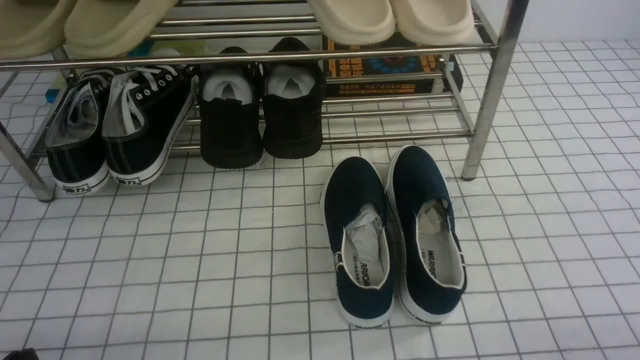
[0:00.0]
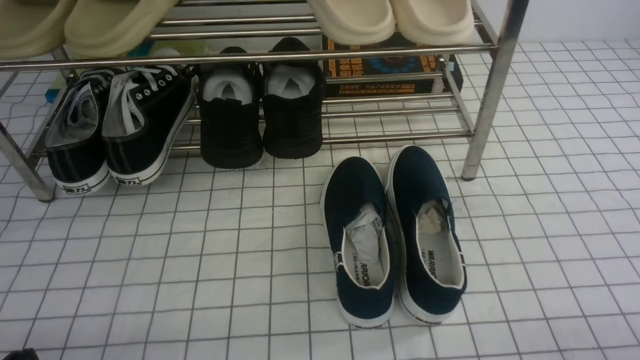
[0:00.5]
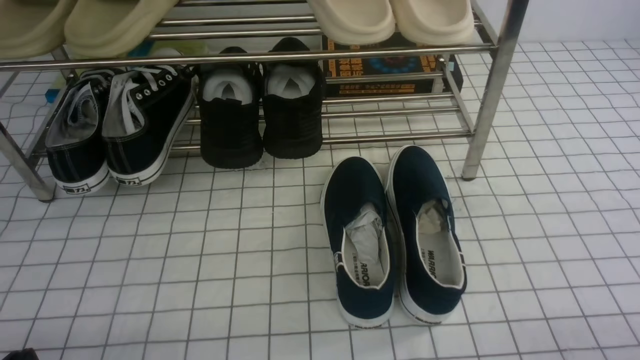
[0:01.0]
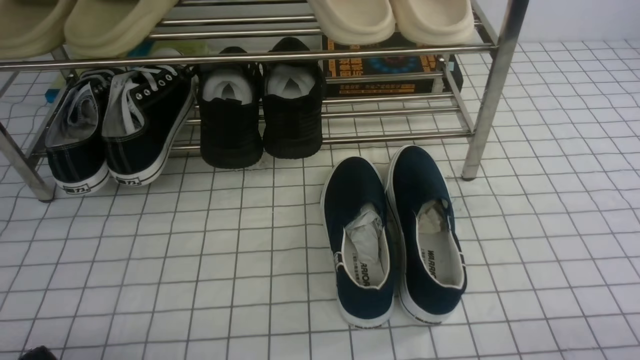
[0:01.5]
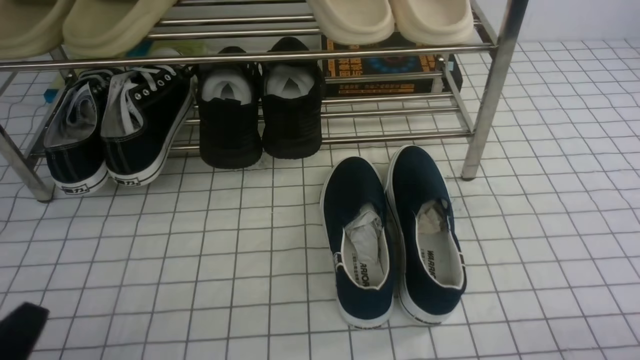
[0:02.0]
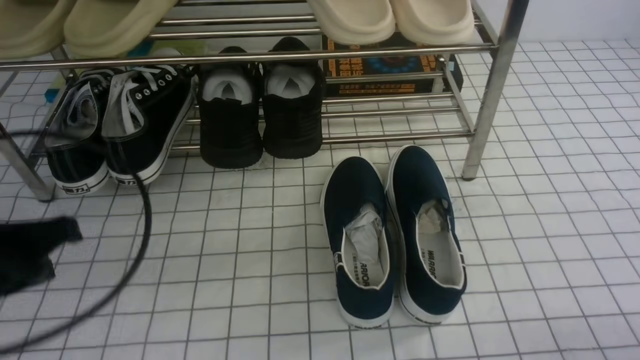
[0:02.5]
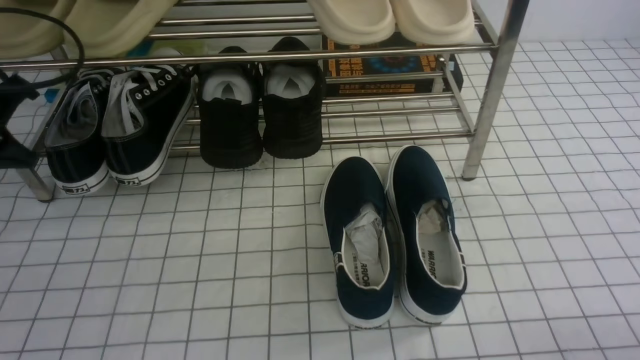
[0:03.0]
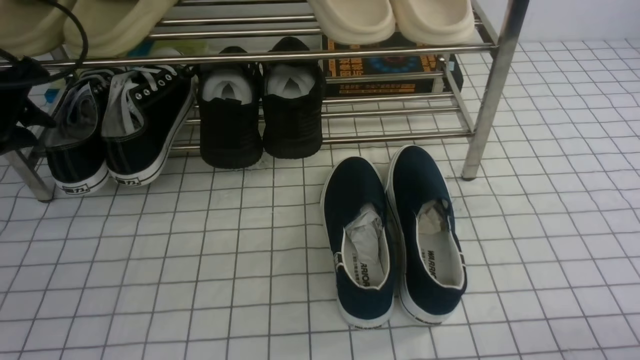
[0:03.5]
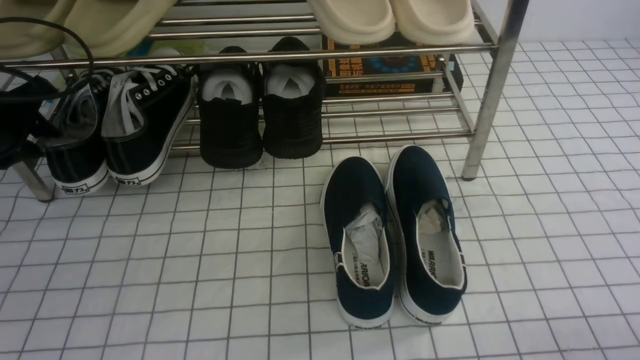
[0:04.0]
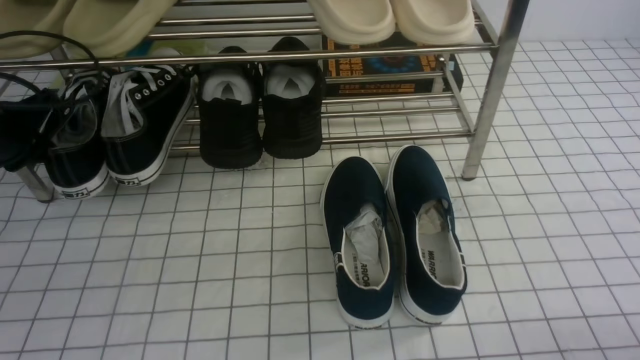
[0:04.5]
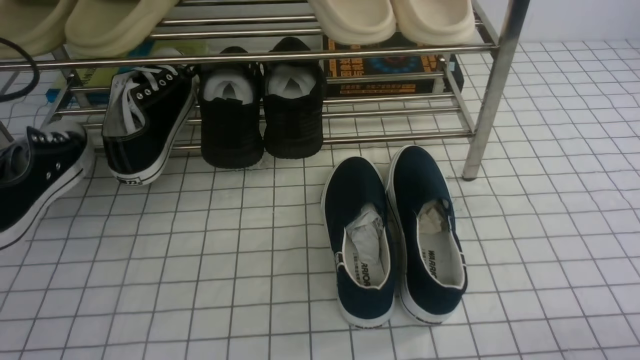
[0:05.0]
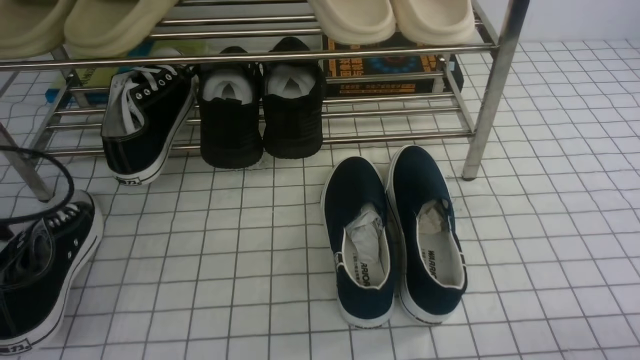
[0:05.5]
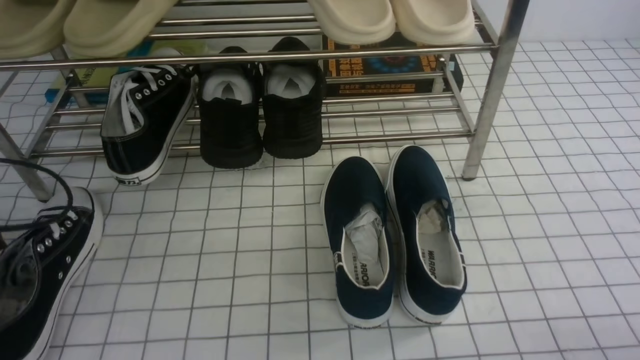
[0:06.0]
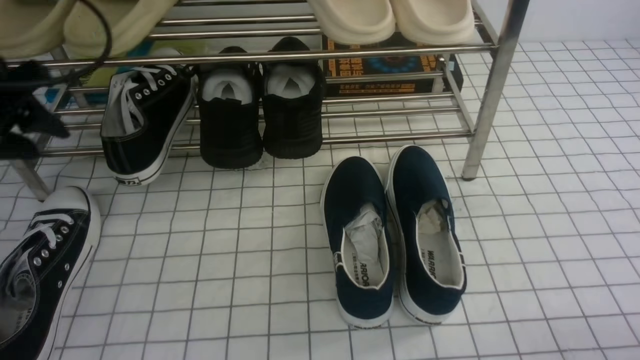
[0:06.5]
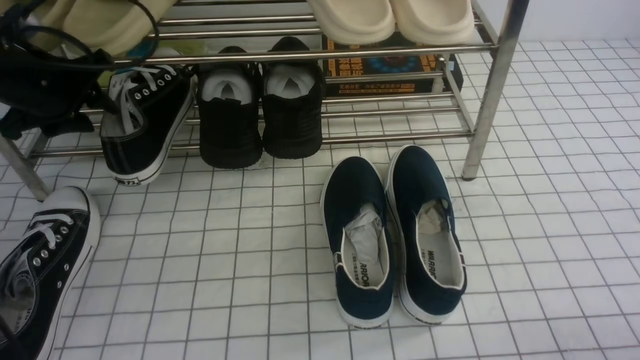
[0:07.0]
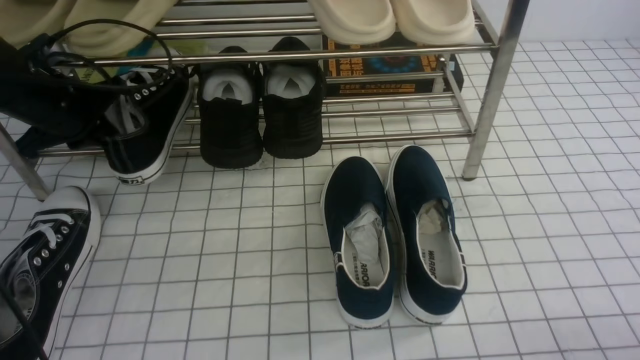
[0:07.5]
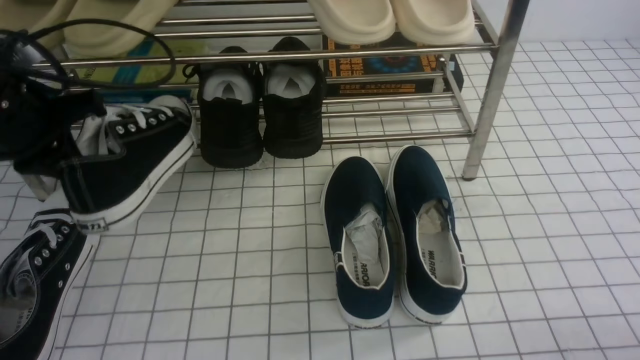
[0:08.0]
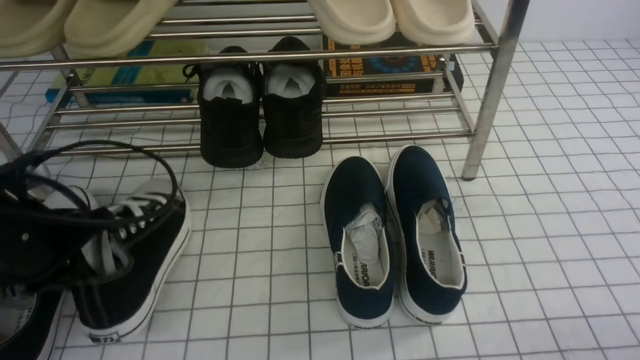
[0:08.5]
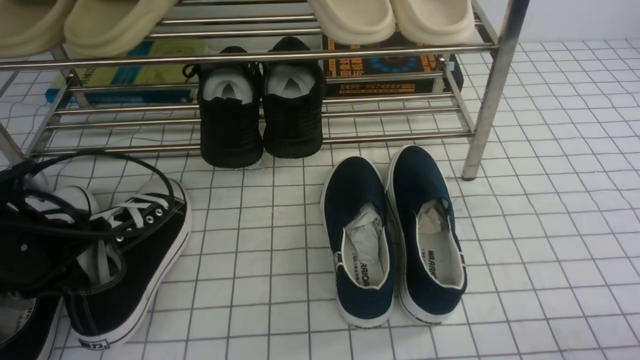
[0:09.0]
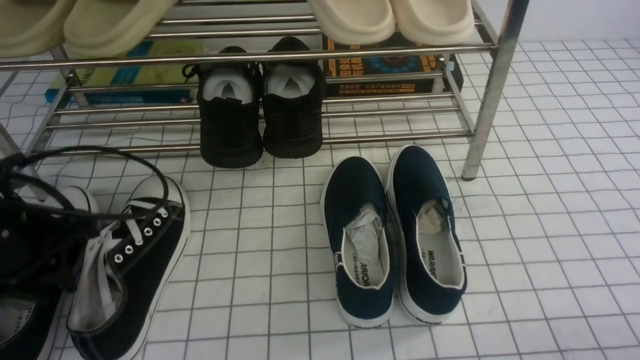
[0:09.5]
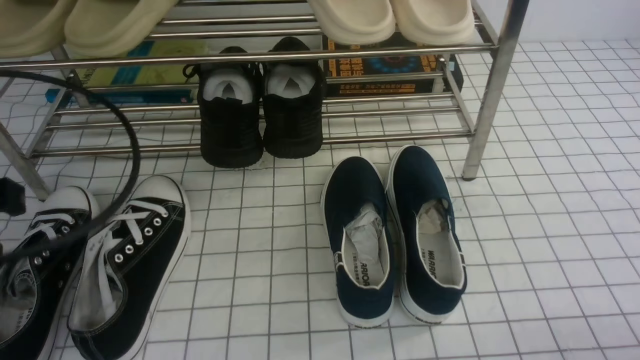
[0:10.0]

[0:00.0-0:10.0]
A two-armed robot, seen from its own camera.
Step, 0:00.0 to 0:04.0: use the left arm to clamp a shoe on the left side of the shoe rack.
Step, 0:04.5 to 0:06.0: Use your left arm to remove the clamped shoe from the shoe rack and put it down.
Step, 0:06.5 to 0:07.5: use the left arm to clamp a shoe on the left side of the shoe rack.
Step, 0:08.0 to 0:09.5: Use your left arm to remove the clamped shoe from the shoe rack and put it down.
0:00.0 to 0:02.0: The left gripper travels upward by roughly 5 cm.
0:02.0 to 0:04.0: The left gripper goes some 30 cm forward, and opens.
0:04.0 to 0:06.0: The left gripper shifts about 15 cm backward, and closes and opens again.
0:06.0 to 0:08.0: The left gripper is displaced forward, to the right and upward by about 15 cm, and closes.
0:08.0 to 0:10.0: The left gripper is displaced backward by about 15 cm, and opens, then closes once more.

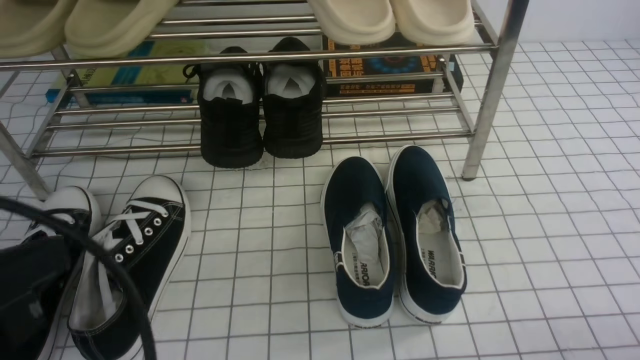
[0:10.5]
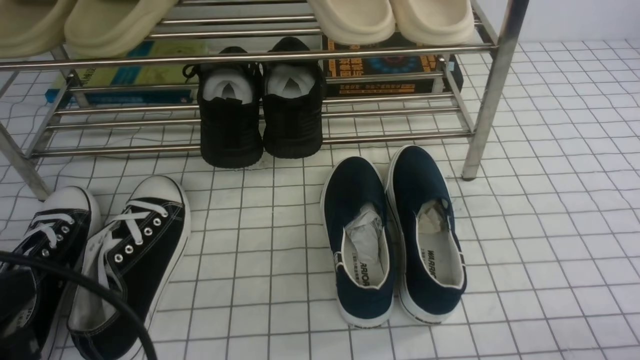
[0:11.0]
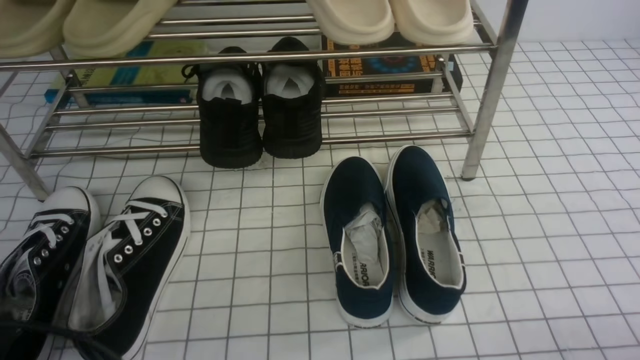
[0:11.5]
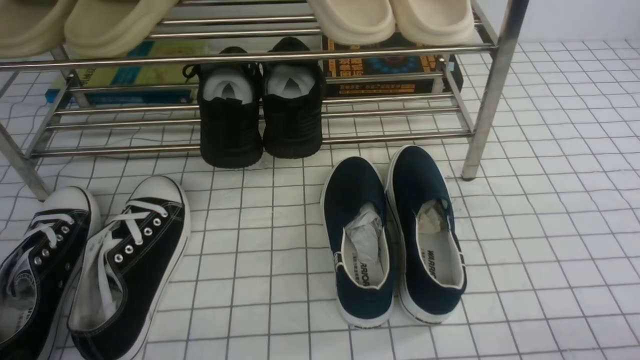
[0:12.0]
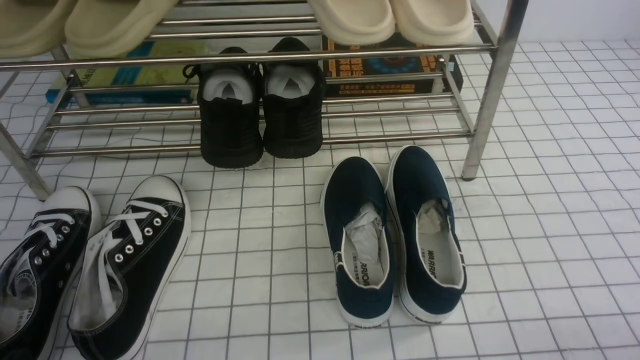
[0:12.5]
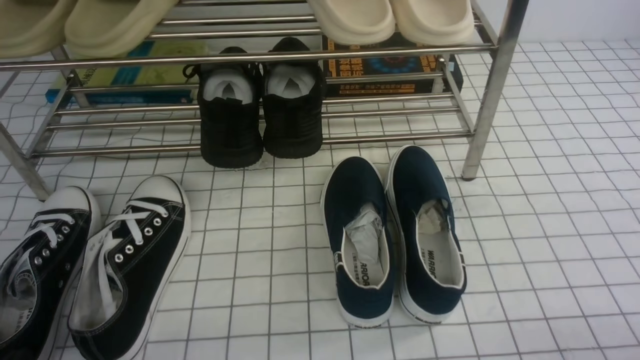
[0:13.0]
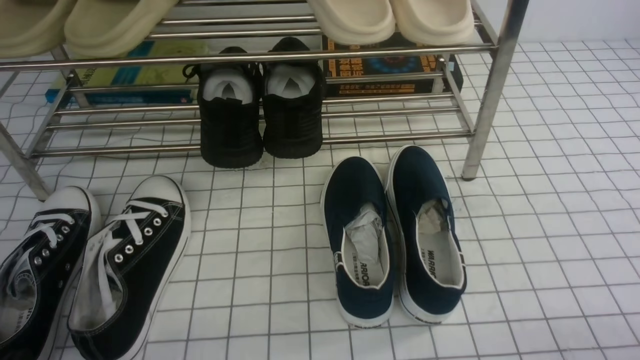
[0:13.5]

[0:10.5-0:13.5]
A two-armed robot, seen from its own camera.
0:10.5 to 0:12.0: The left gripper is displaced downward by approximately 15 cm.
0:12.0 to 0:13.5: Neither gripper changes place.

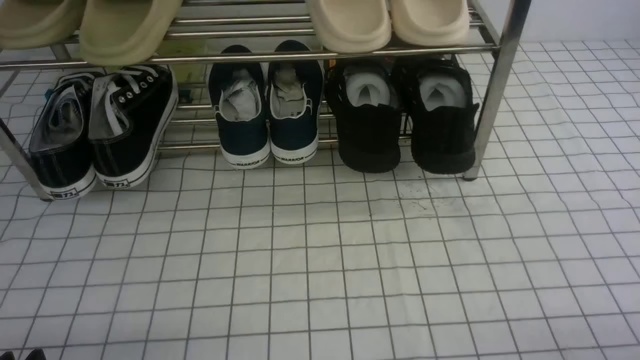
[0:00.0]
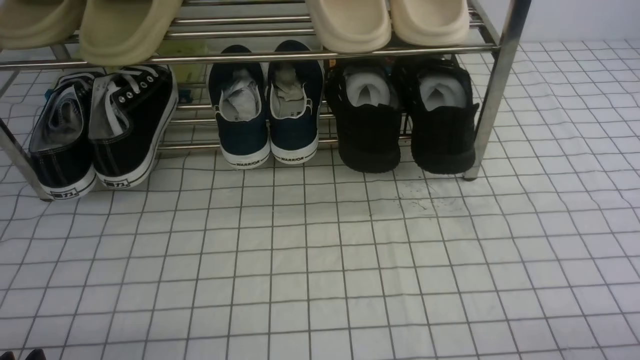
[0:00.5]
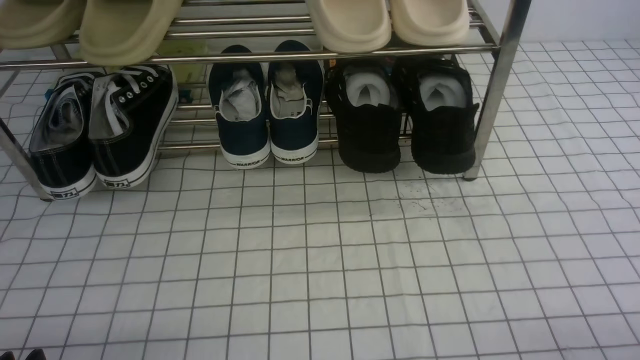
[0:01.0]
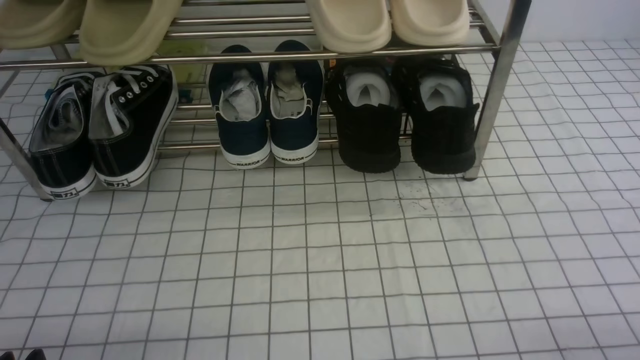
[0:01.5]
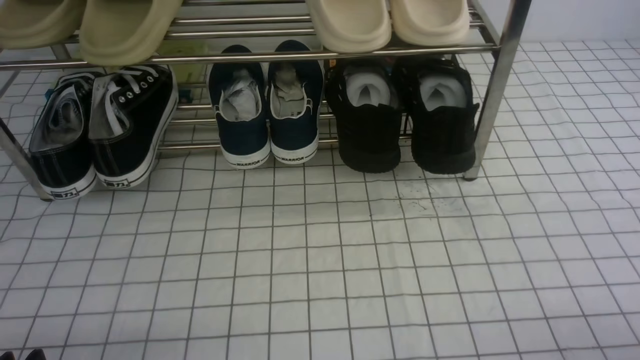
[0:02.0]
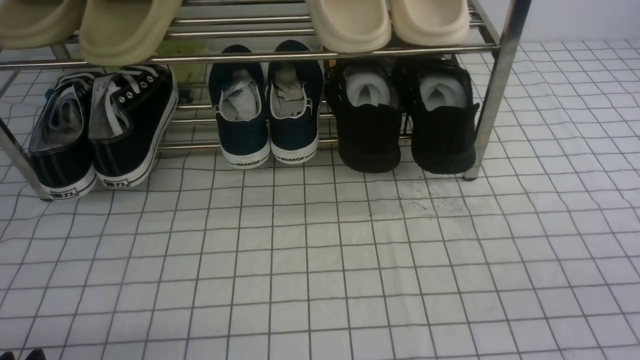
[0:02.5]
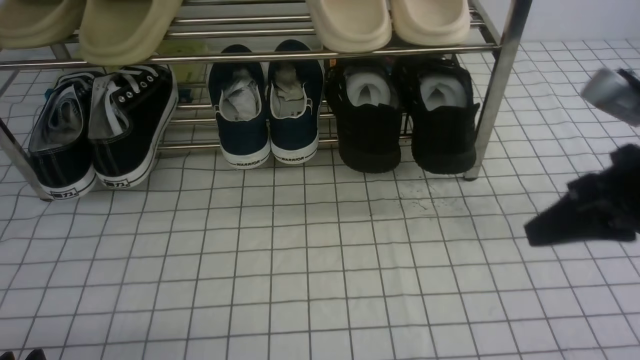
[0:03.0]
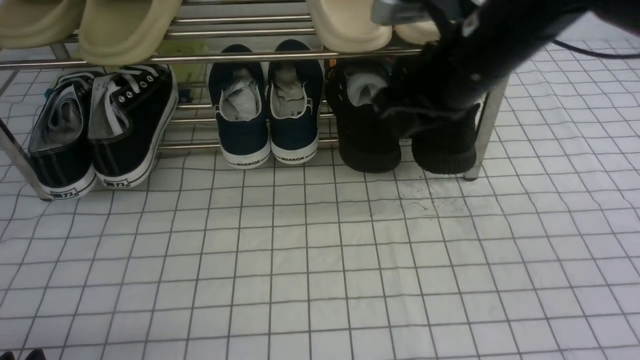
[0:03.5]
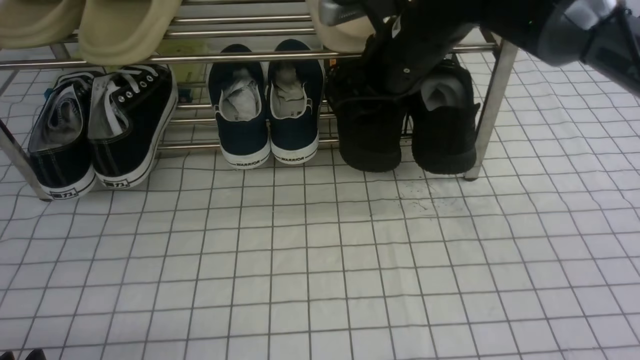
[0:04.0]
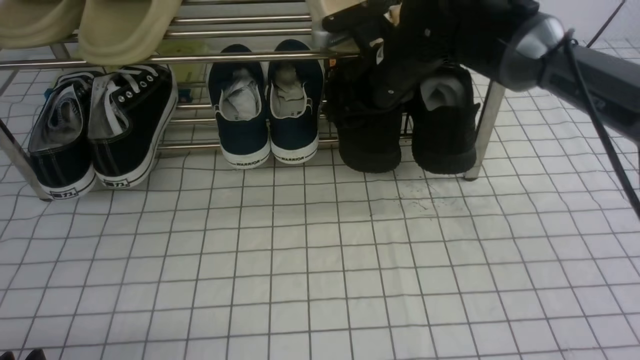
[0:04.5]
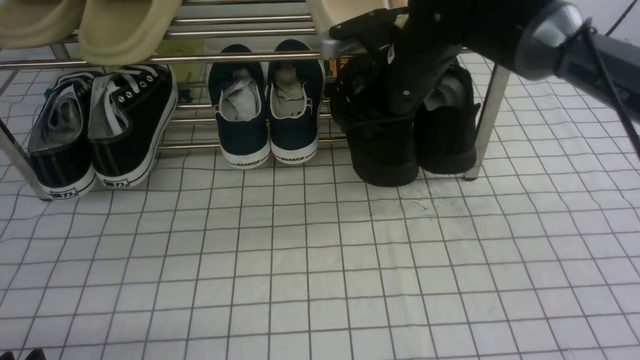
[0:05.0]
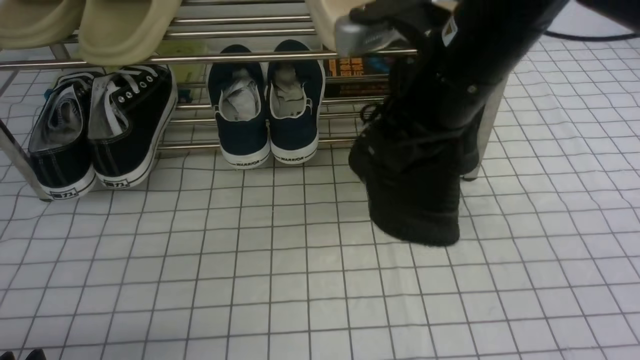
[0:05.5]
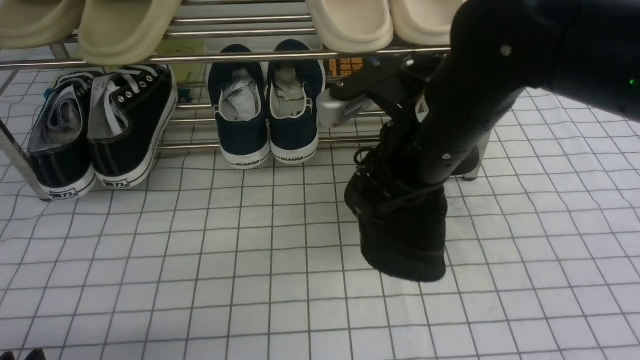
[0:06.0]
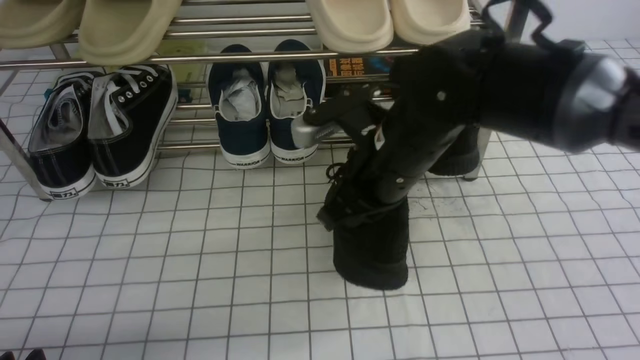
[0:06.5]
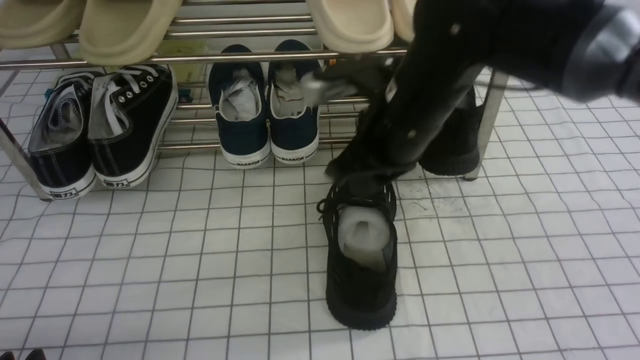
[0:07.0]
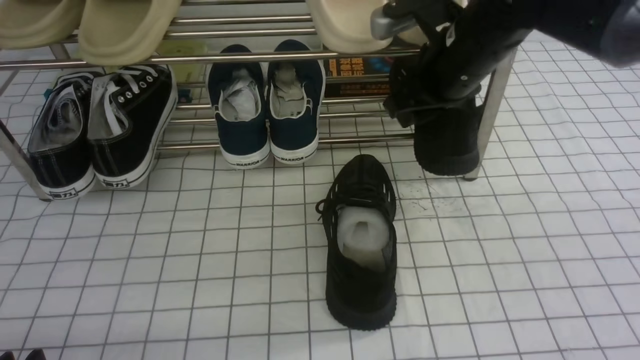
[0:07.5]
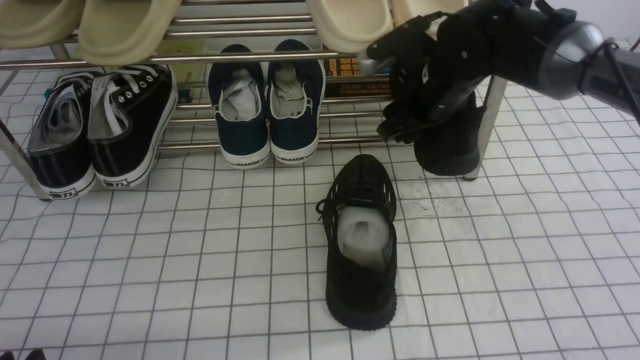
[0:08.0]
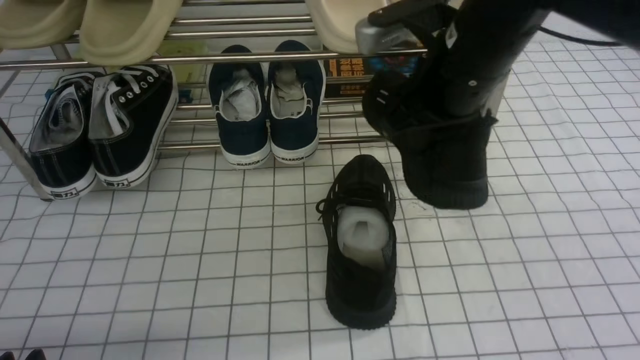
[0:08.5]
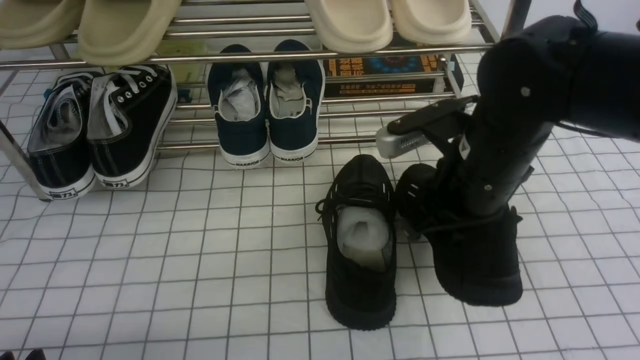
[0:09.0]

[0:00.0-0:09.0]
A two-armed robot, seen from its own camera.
Step, 0:00.0 to 0:04.5: use the right arm to clamp a shoe on the right side of the shoe rack.
Step, 0:05.0 to 0:07.0: use the right arm to take out the clamped shoe from the shoe rack and put it down.
Step, 0:07.5 to 0:08.0: use the right arm to clamp a shoe on the right side of the shoe rack.
0:02.0 to 0:04.5: The right gripper goes approximately 40 cm forward and to the left, and opens.
0:04.5 to 0:07.0: The right gripper heads backward, covering about 10 cm, and closes.
0:07.0 to 0:09.0: The right gripper shifts some 5 cm backward, and opens, then closes once more.